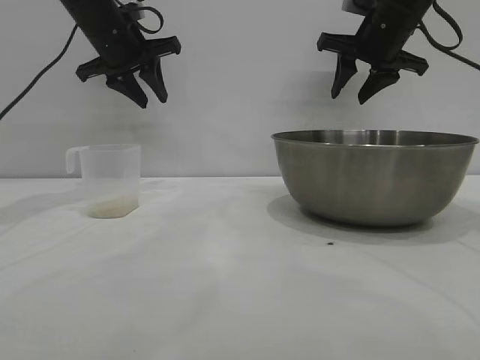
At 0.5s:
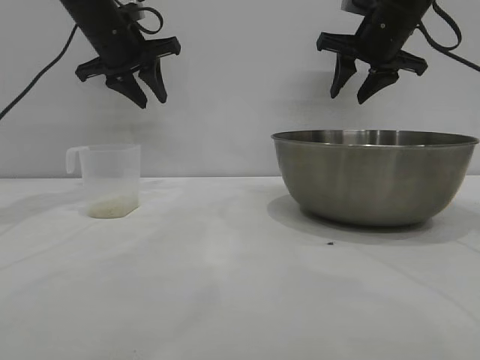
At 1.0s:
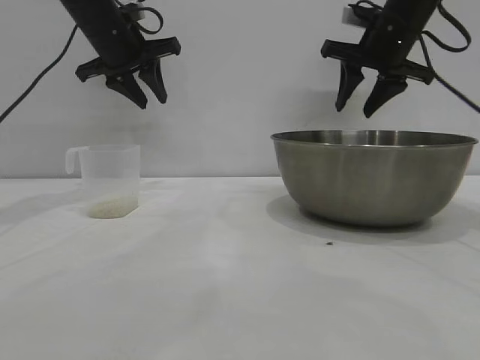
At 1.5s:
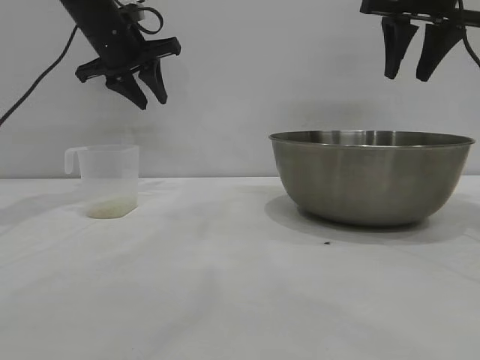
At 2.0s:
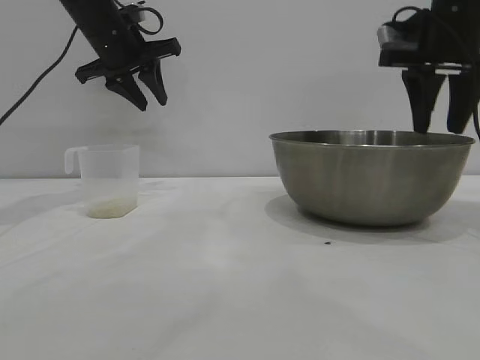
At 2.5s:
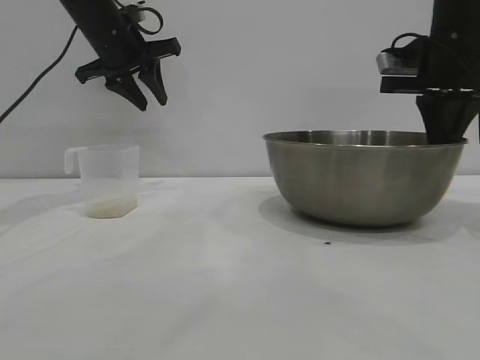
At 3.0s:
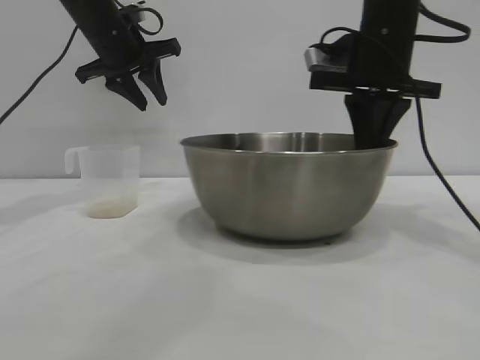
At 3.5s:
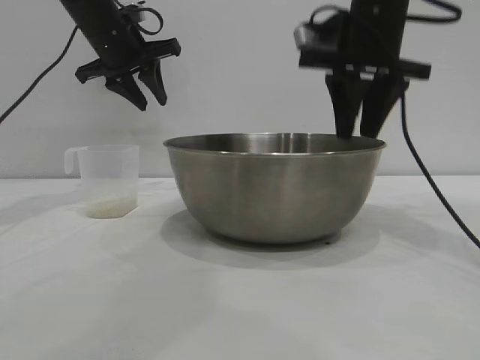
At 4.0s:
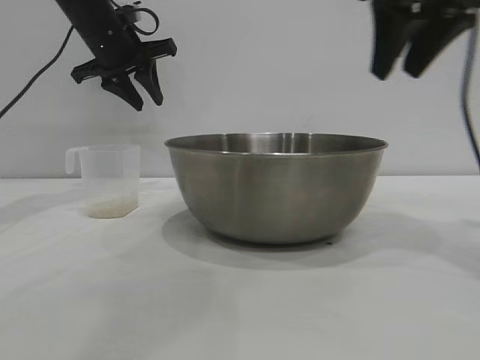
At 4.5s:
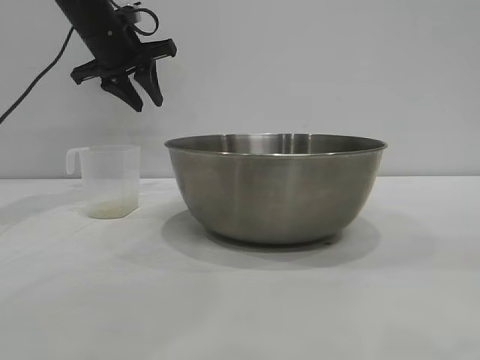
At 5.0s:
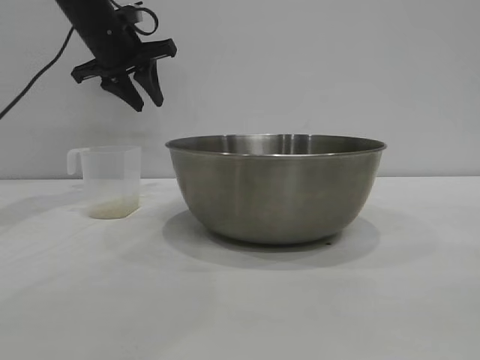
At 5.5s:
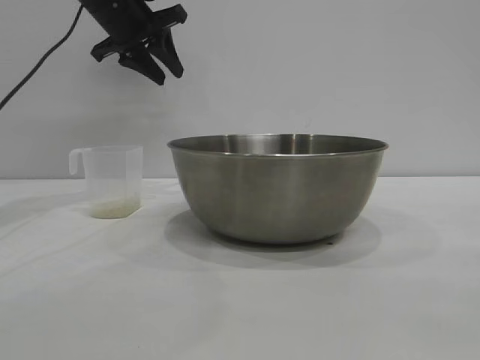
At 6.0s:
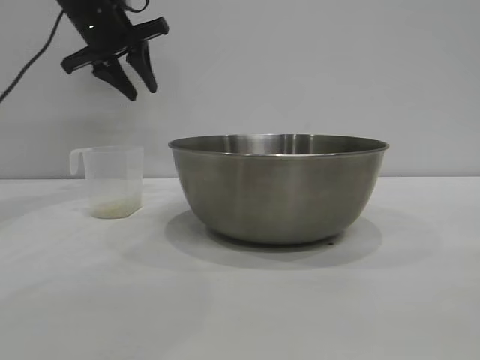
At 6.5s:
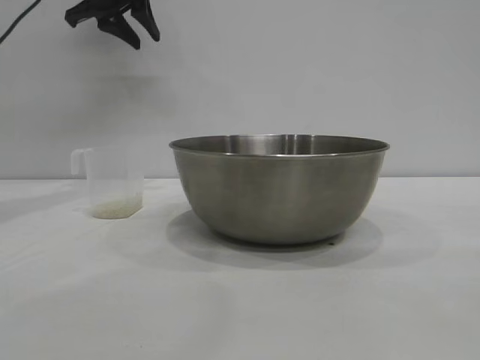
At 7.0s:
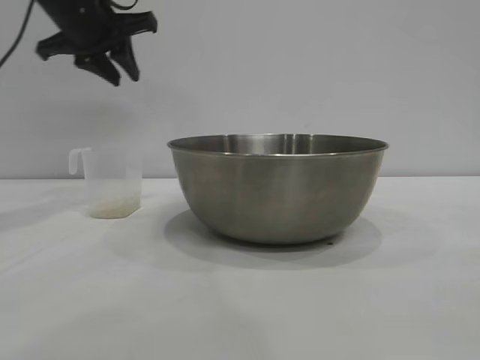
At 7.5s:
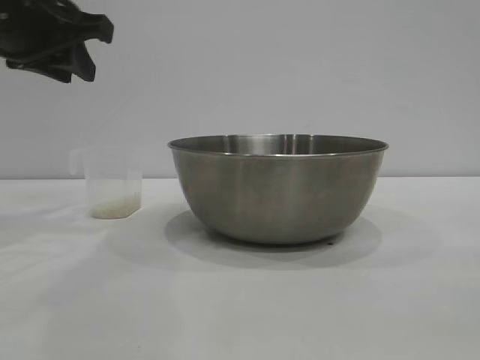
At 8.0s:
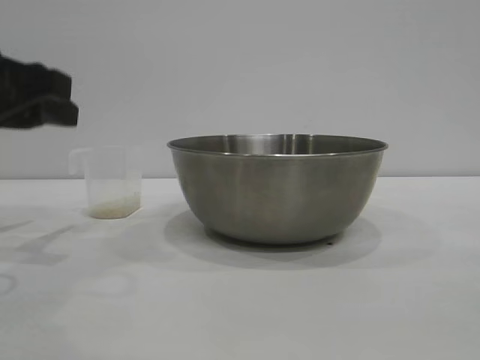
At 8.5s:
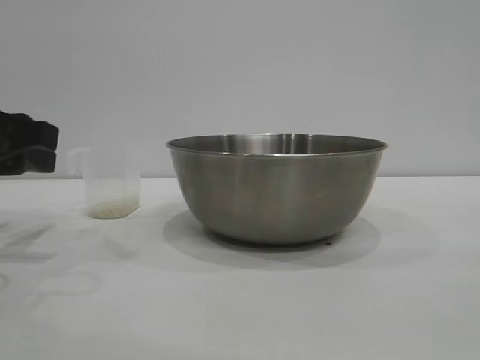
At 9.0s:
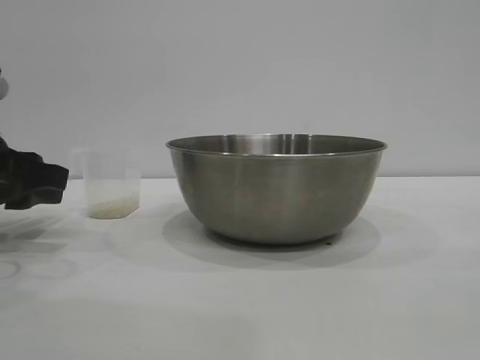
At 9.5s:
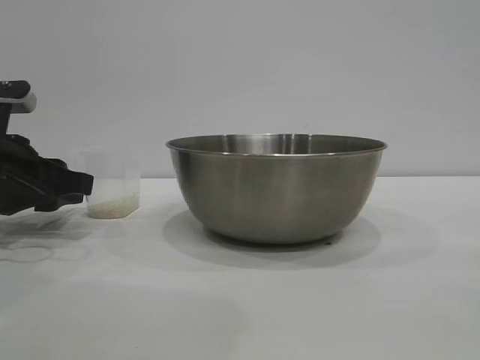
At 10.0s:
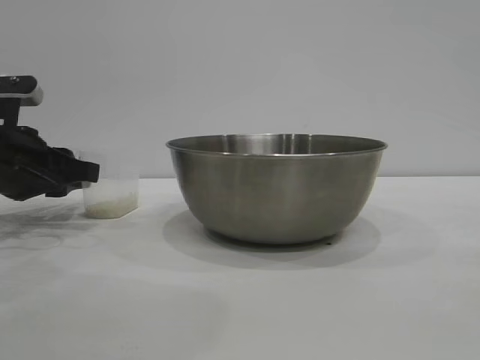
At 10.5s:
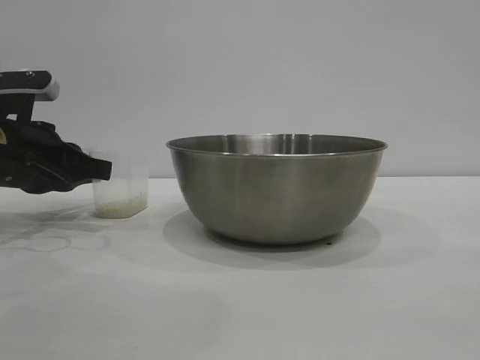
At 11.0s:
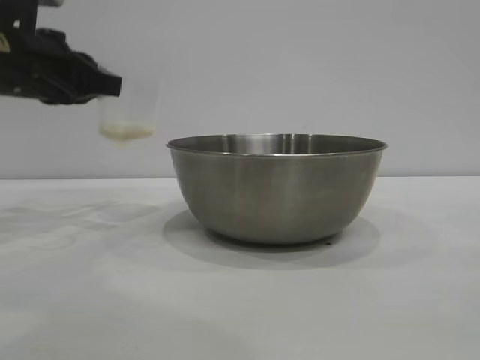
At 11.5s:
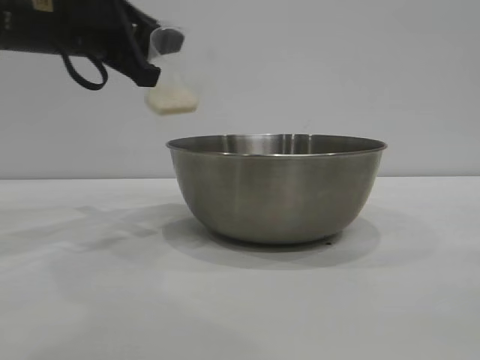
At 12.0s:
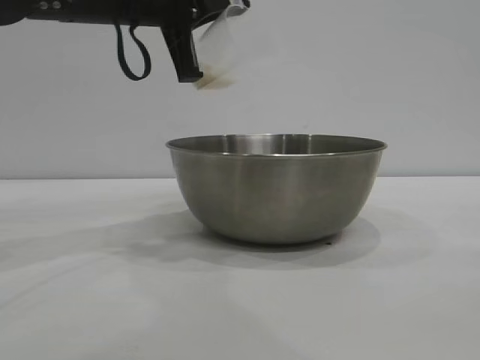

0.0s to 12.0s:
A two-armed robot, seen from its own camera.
Task of the whole recording: the right gripper grasp the rice container and place it in the center of the table, the left gripper grasp the rice scoop and pour the rice into the rice container.
Step, 0.0s to 3.5s: Move the bowl to the center of view with the right gripper.
Step, 4.0s to 10.5s: Pick up the cup with rice in it with the left gripper.

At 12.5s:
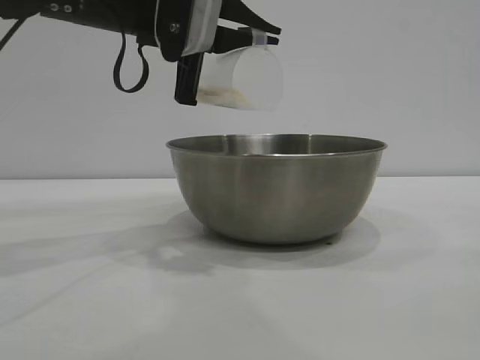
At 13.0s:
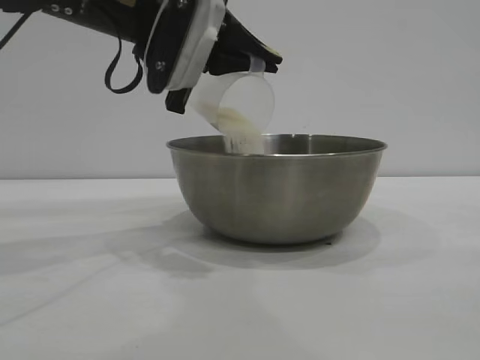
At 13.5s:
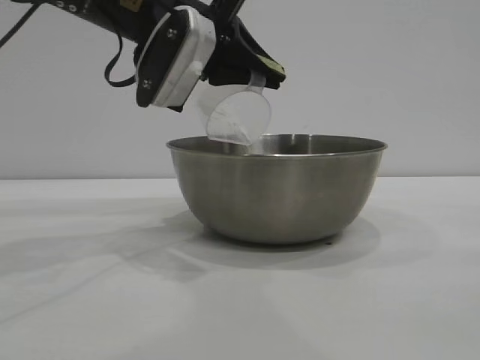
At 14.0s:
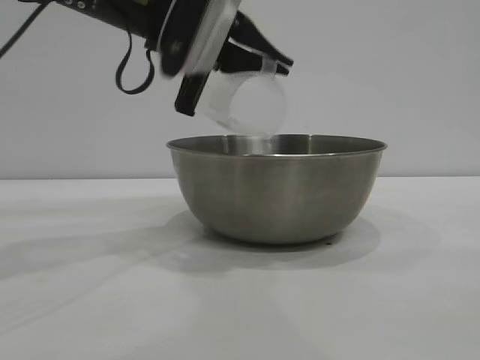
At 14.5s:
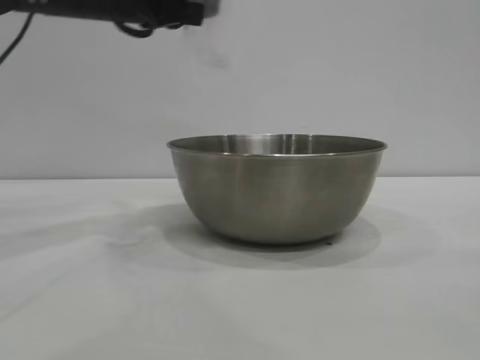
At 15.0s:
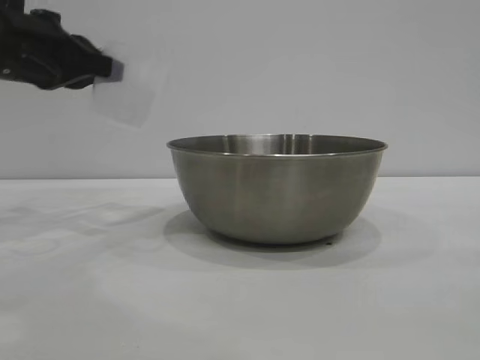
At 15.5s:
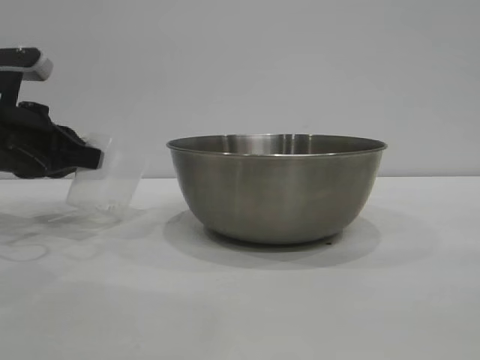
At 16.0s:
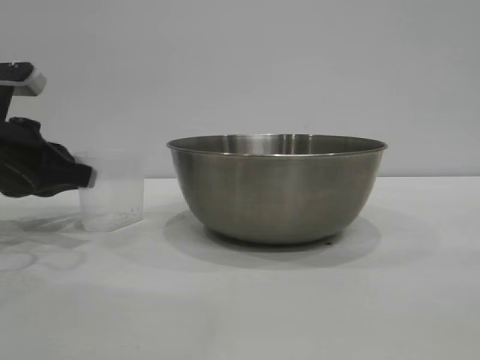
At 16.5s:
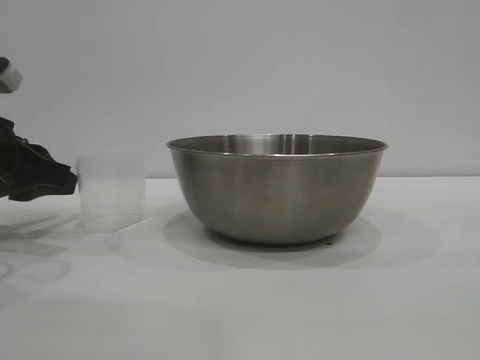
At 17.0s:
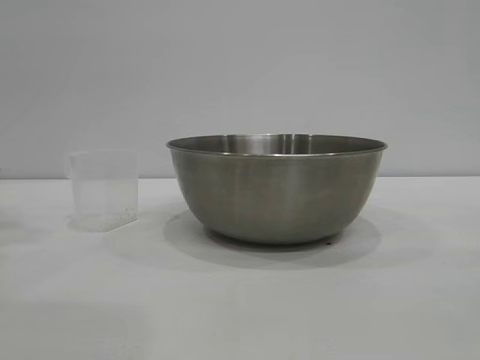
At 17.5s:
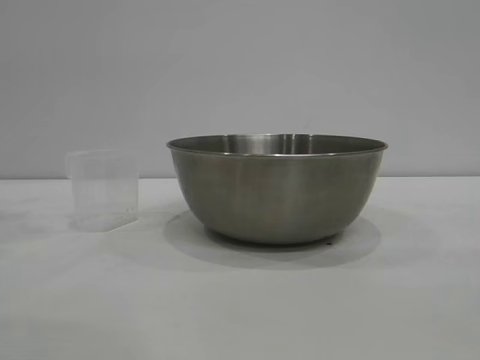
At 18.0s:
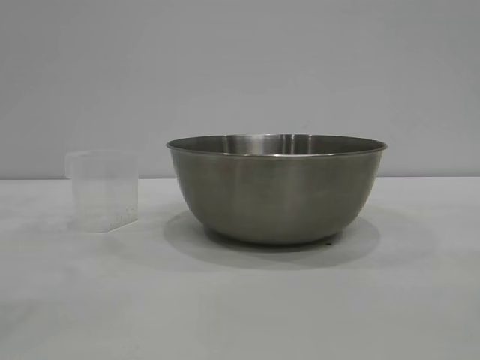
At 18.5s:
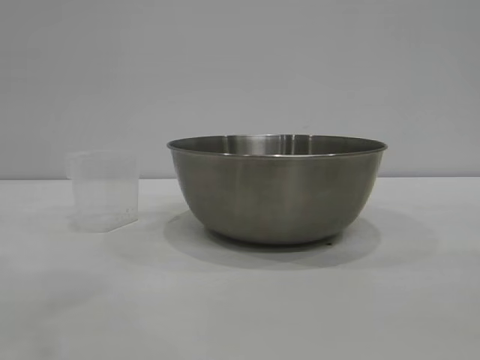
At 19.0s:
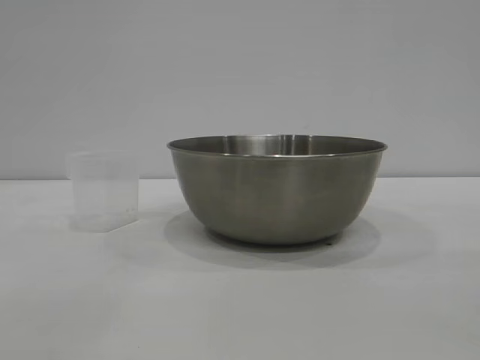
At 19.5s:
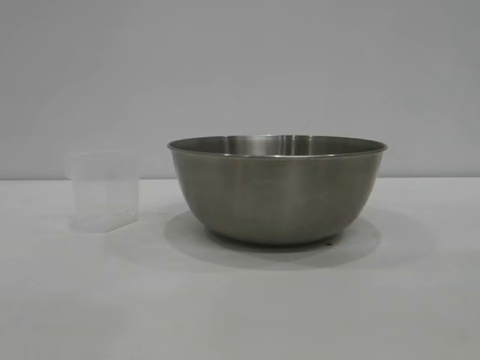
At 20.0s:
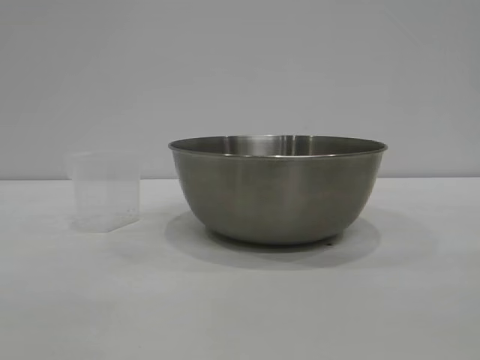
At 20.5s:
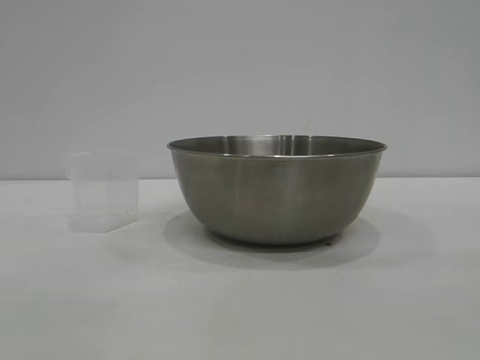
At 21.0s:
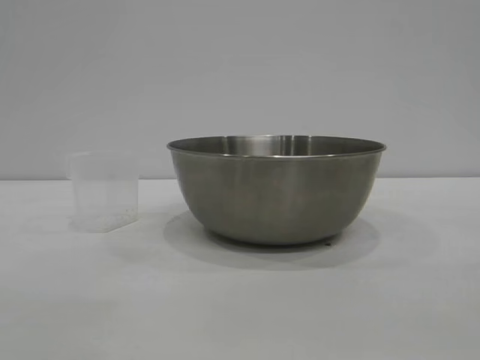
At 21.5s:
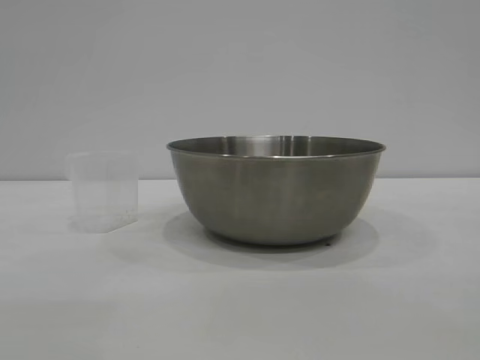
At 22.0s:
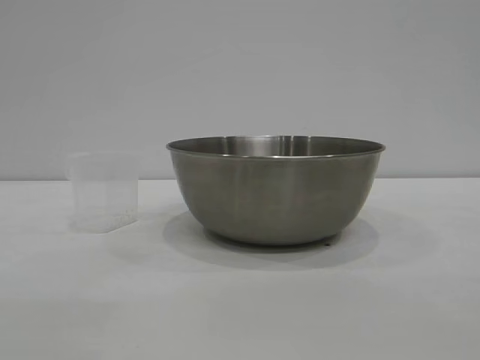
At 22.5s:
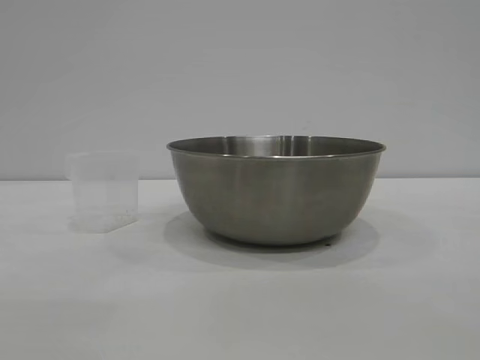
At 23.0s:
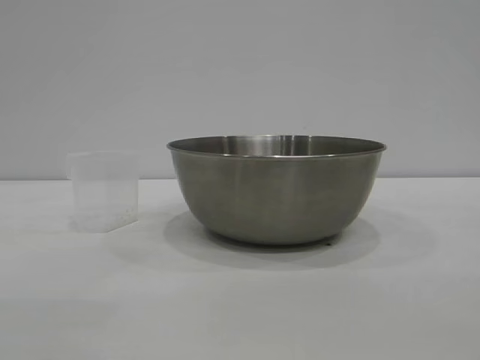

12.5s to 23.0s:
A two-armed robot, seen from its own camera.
Task of the whole recording: the right gripper grasp the rice container and place it in the center of the table, the left gripper grasp the rice scoop and pour the rice into the rice container.
Step, 14.0s to 16.5s: Place the cup on the table with the left gripper.

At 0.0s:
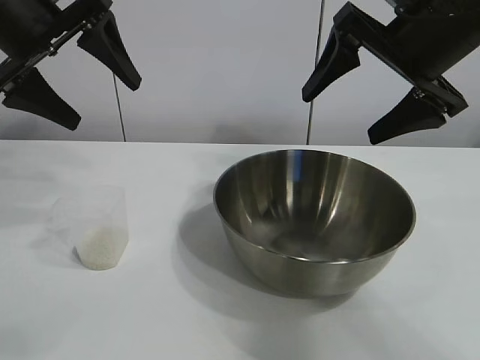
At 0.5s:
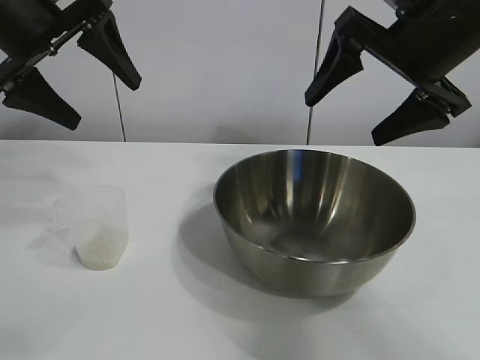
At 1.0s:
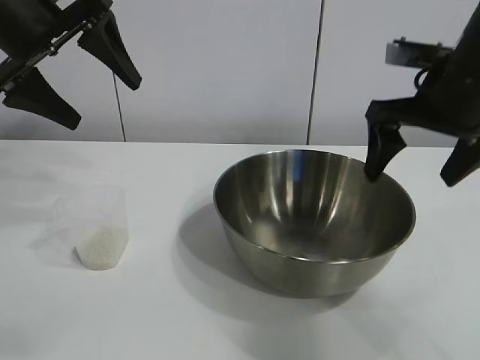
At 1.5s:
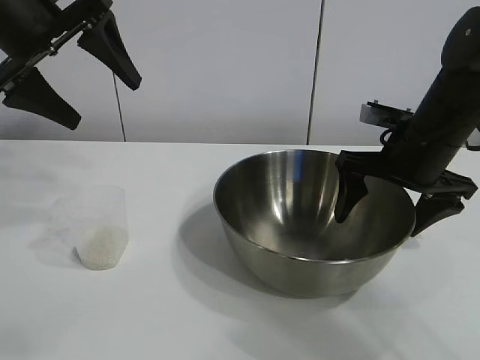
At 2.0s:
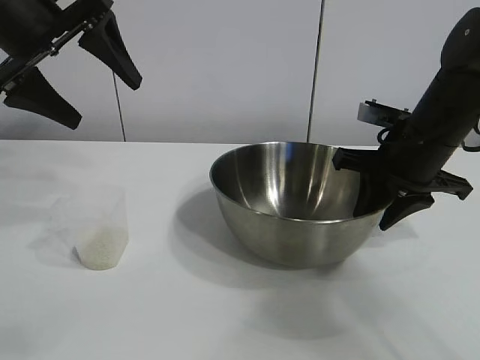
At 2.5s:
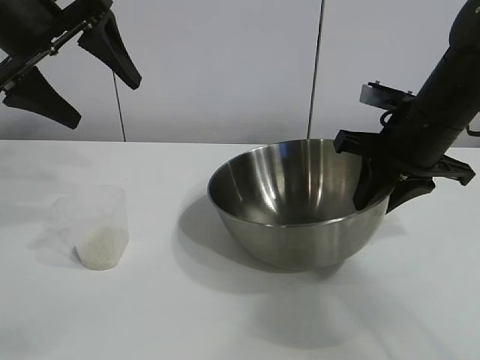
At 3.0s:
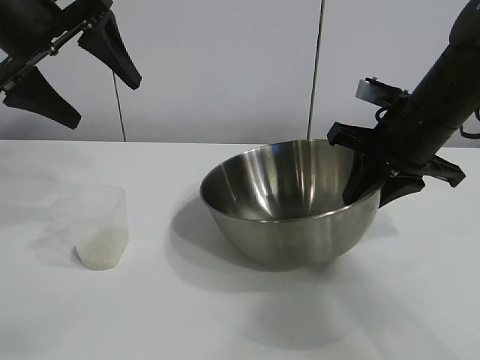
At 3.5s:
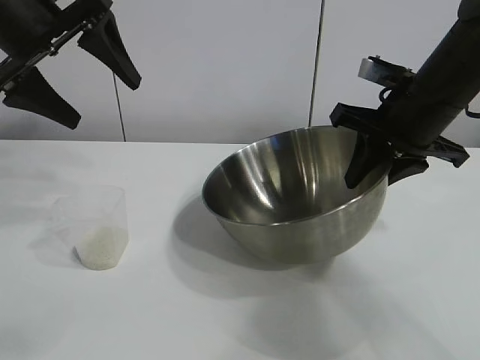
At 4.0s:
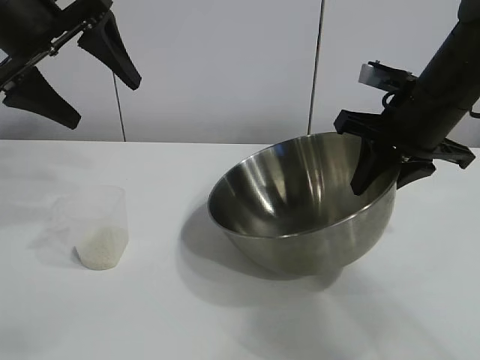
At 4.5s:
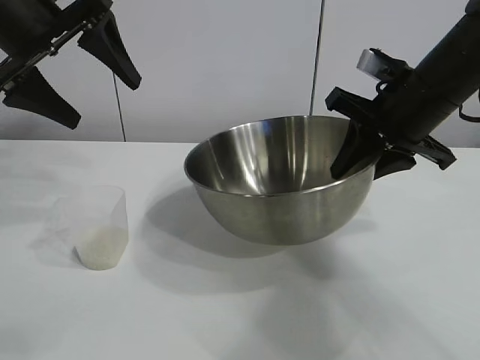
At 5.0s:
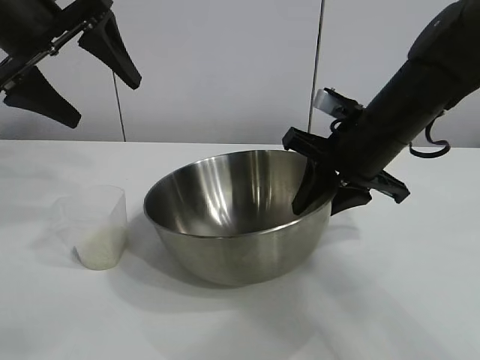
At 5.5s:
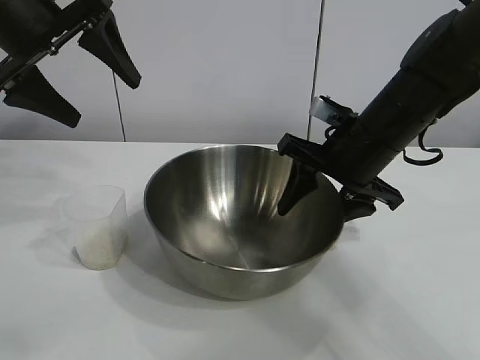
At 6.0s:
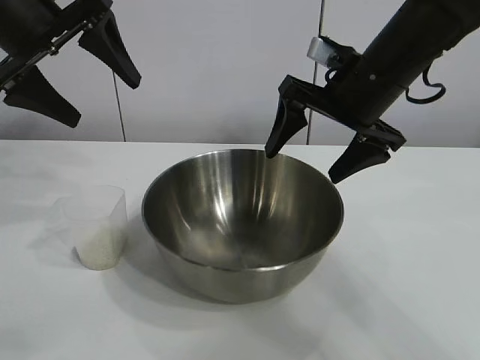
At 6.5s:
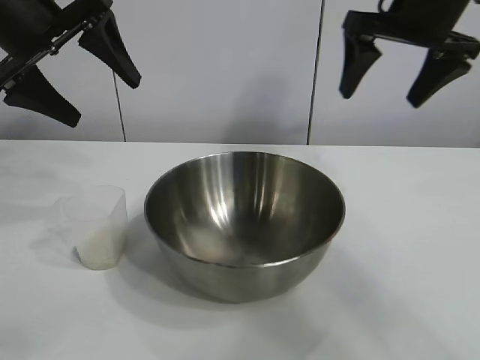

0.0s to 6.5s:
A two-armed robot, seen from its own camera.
Task of the whole recording: the right gripper grasp the rice container and place it in the center of the table, the left gripper grasp the rice scoop and pour the rice into the rice container.
Step, 0.5s to 5.5s: Move the bowl in the center of view with right gripper.
